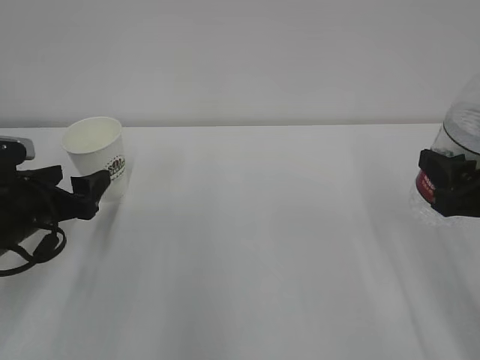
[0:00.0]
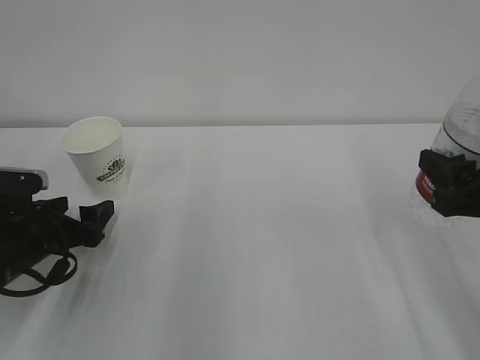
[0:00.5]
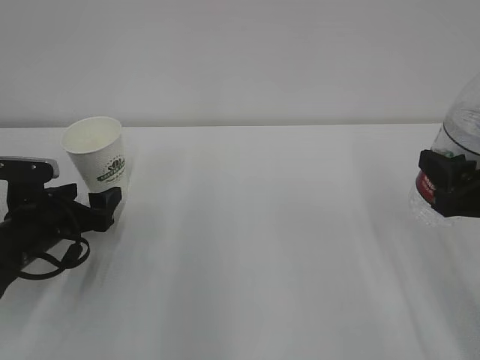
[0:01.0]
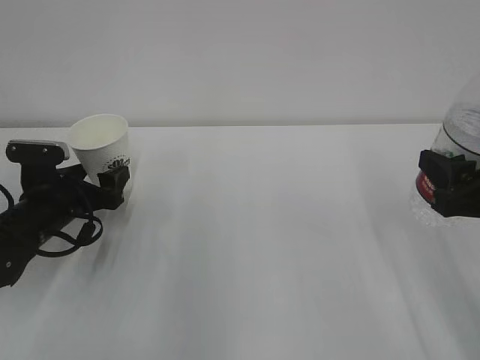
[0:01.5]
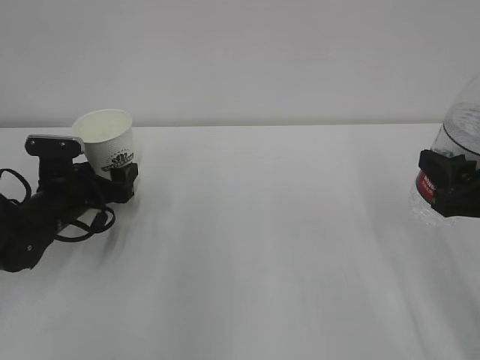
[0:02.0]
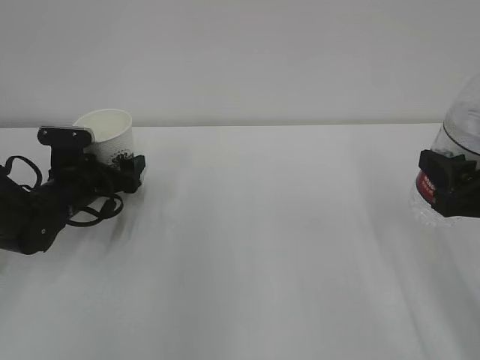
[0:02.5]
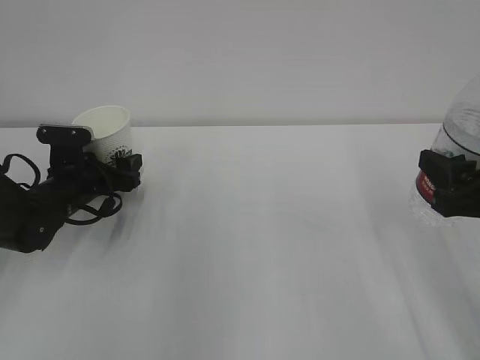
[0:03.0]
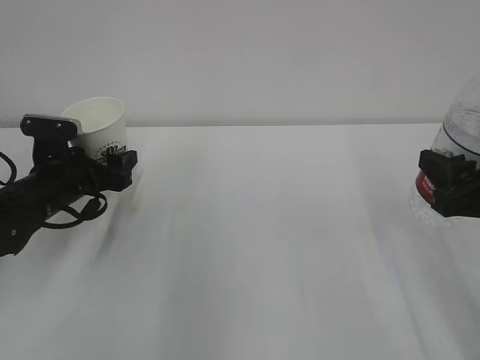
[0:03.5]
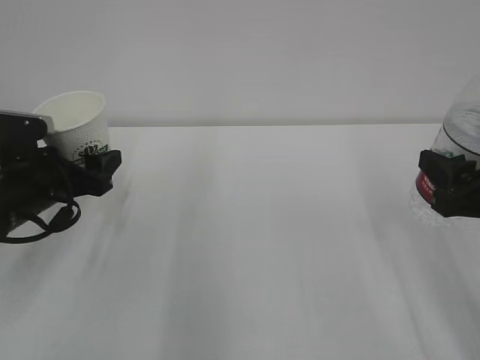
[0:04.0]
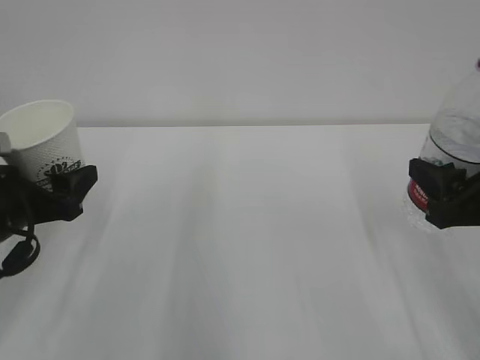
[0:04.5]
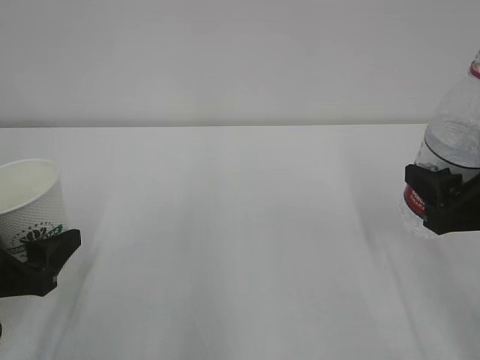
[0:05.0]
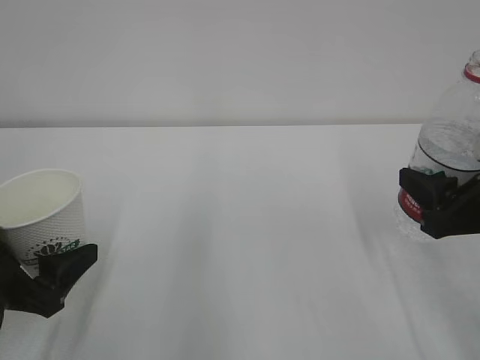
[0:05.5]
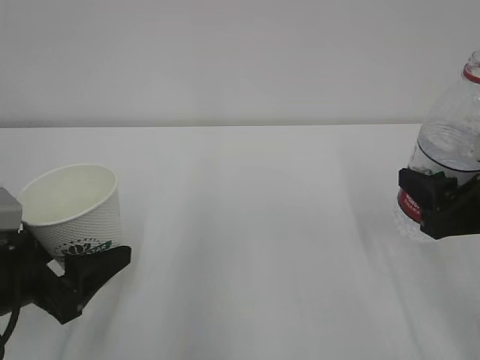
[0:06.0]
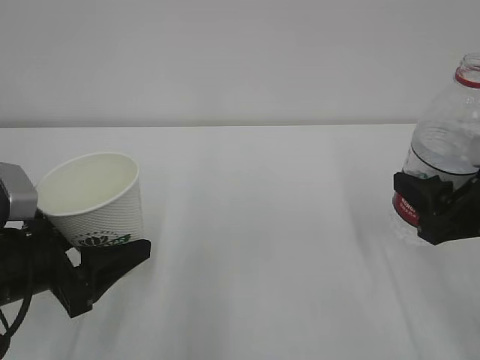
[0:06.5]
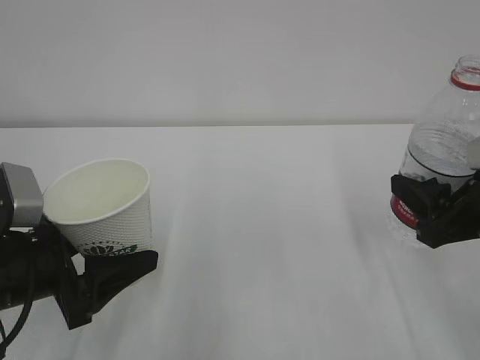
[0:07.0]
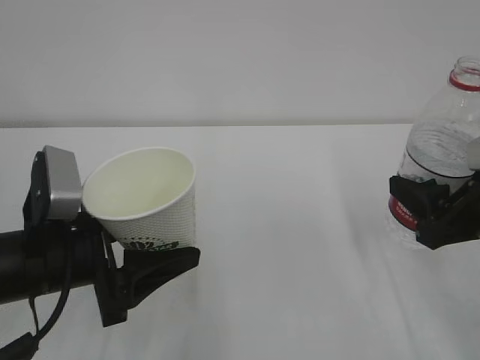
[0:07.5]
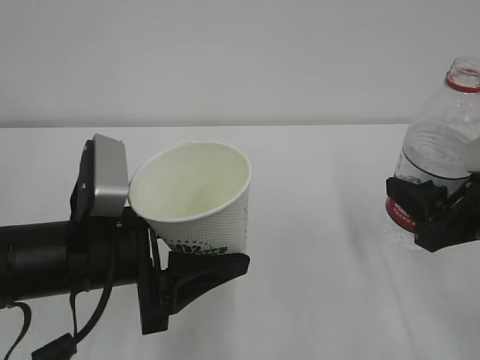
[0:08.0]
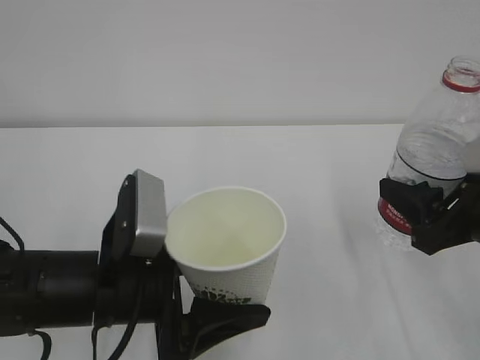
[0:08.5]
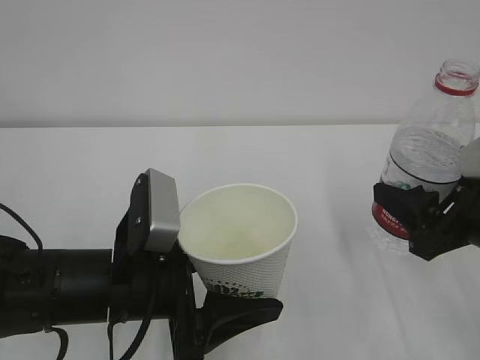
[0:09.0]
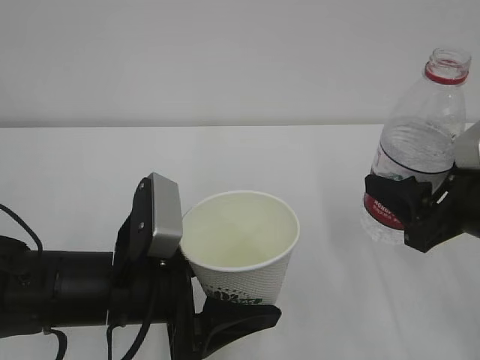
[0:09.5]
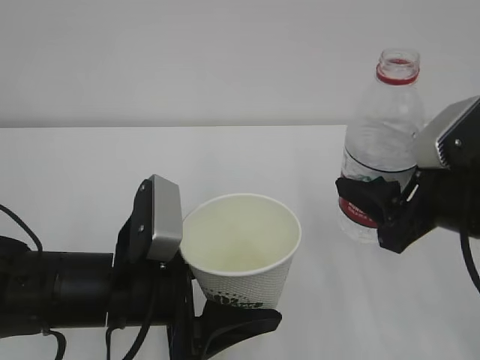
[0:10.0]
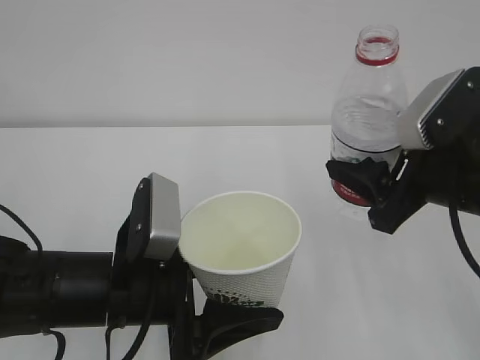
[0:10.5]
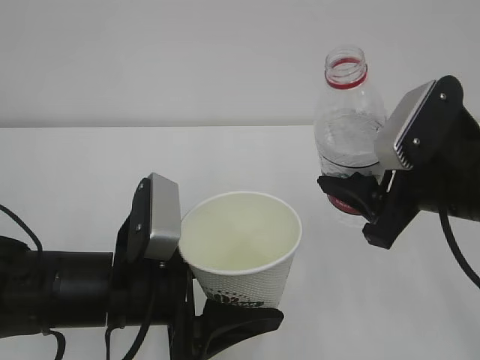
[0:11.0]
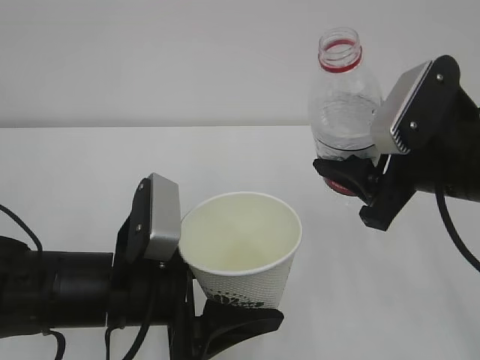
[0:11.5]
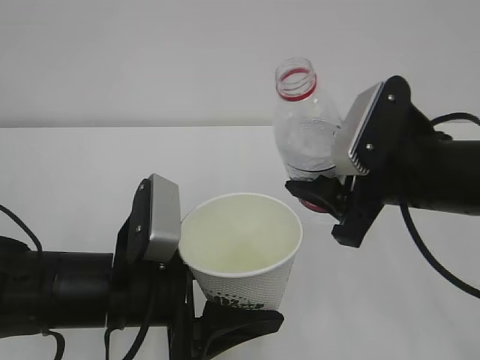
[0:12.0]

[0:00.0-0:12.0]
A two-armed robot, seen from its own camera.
0:00.0 to 0:02.0: The left gripper shifts some 10 cm forward and downward.
0:02.0 to 0:04.0: The left gripper travels upward by about 5 cm.
0:04.0 to 0:06.0: The left gripper is displaced backward by about 10 cm.
0:06.0 to 0:08.0: The left gripper moves to the right, approximately 10 cm.
0:10.0 to 0:12.0: The right gripper travels to the left by about 5 cm.

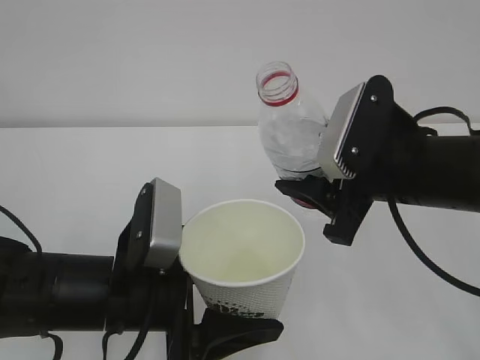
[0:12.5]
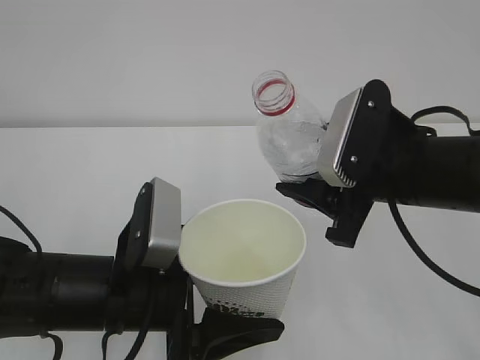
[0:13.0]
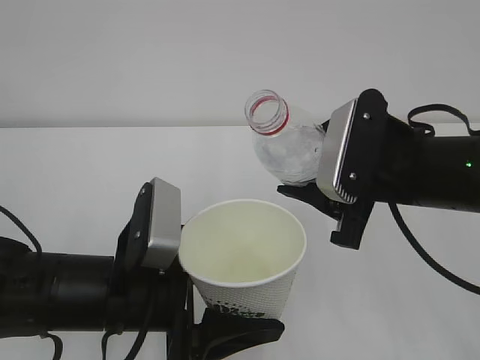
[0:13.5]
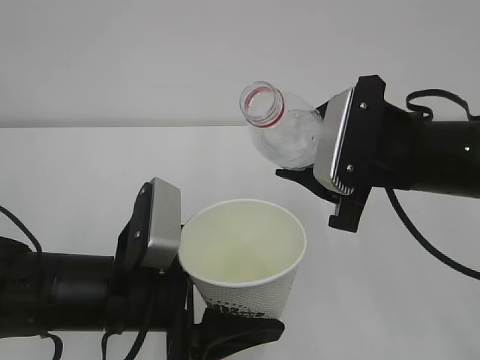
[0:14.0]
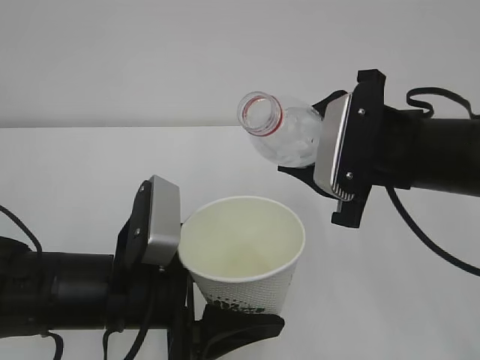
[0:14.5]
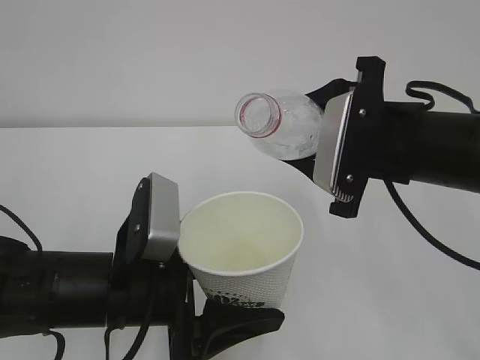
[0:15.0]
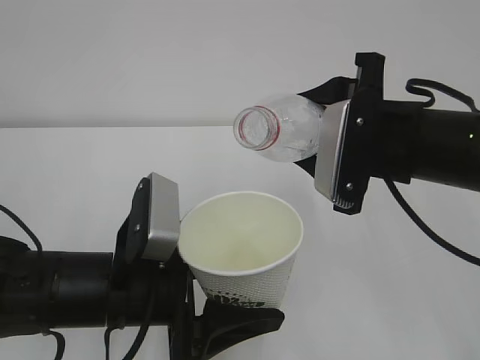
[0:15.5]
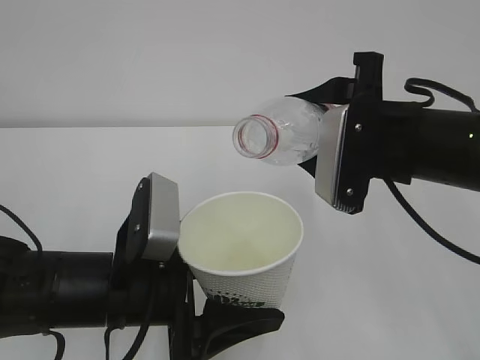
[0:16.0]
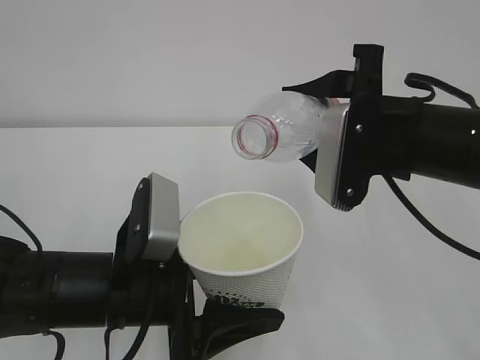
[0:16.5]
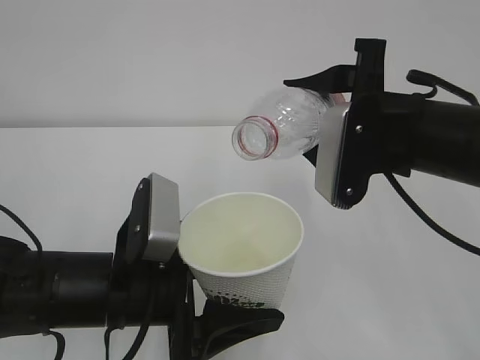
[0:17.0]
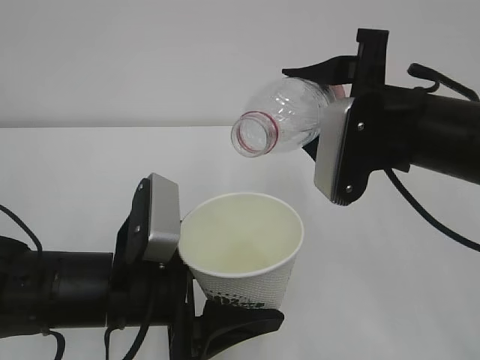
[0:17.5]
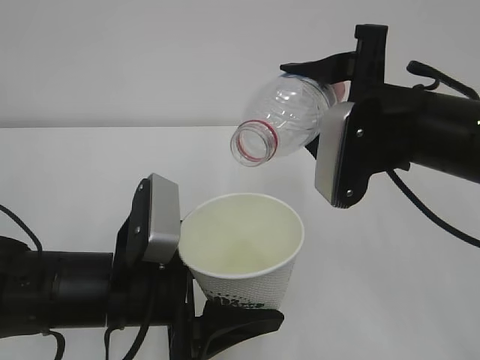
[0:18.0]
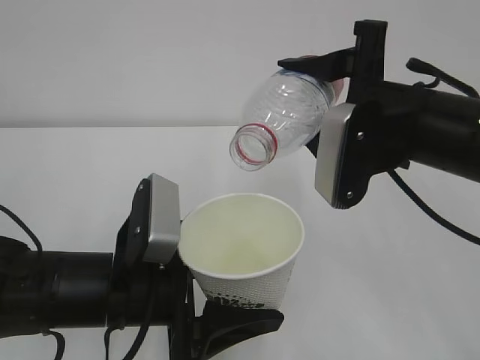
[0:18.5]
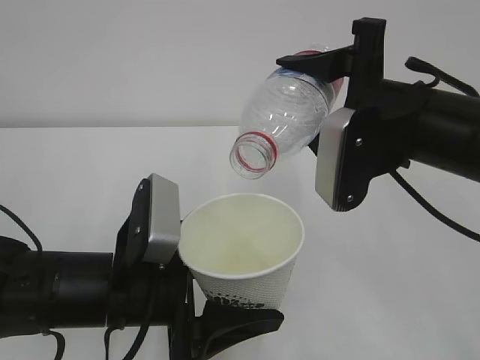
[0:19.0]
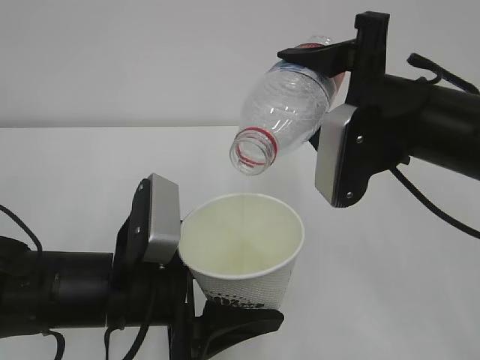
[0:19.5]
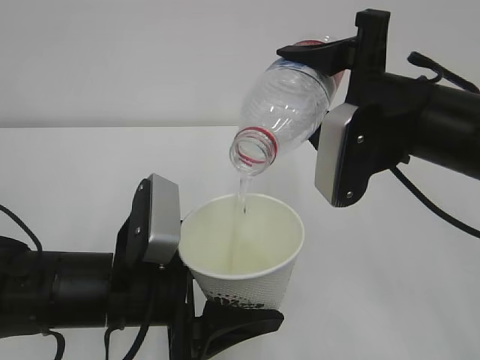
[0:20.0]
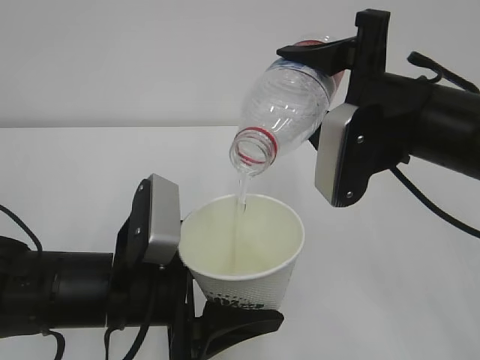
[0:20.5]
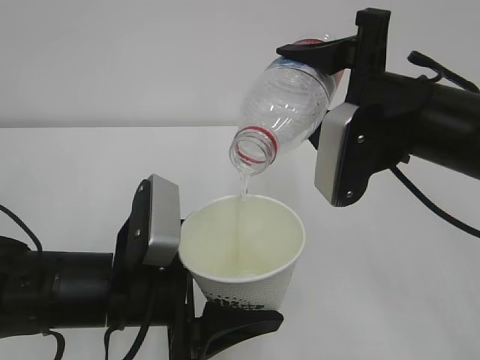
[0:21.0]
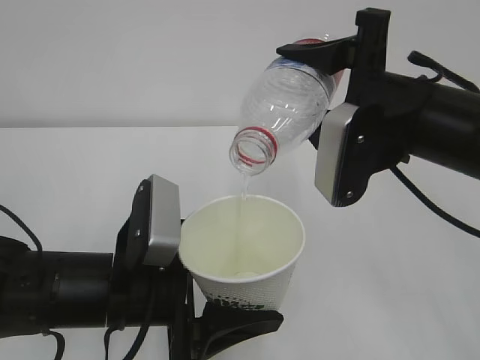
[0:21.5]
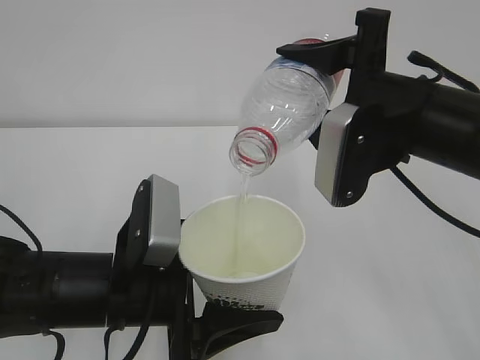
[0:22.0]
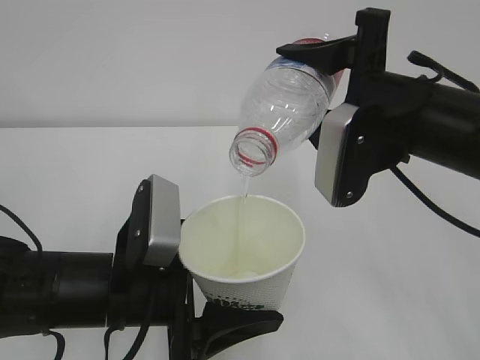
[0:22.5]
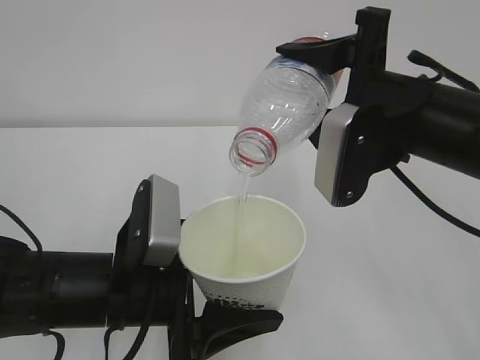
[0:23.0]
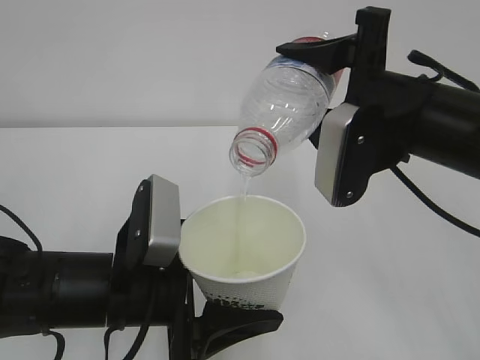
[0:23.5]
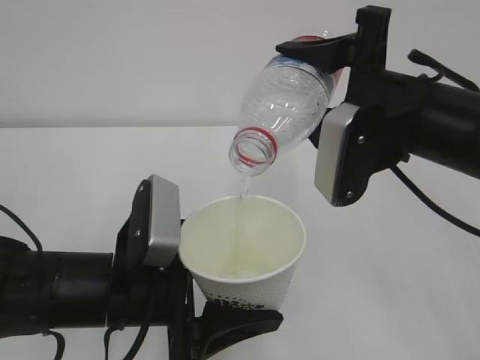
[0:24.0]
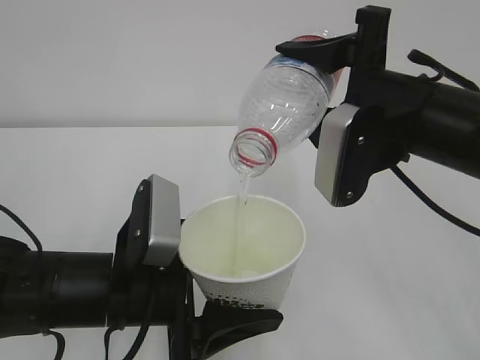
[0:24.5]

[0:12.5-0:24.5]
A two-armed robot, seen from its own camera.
0:14.5 to 0:16.5: The grippers move only a little.
0:16.5 to 0:20.5: There are only small adjustments of the grippers.
0:20.5 to 0:24.5: Both grippers stay about where they are.

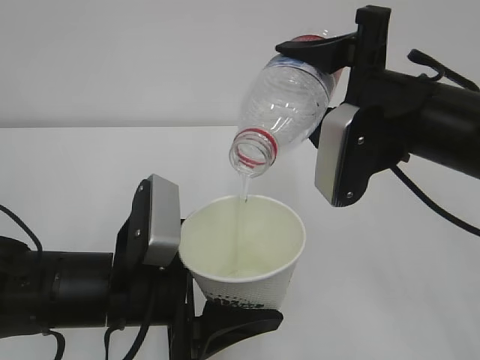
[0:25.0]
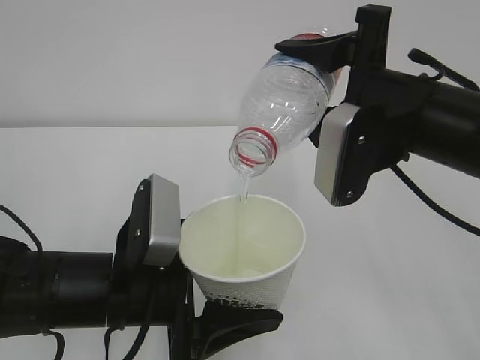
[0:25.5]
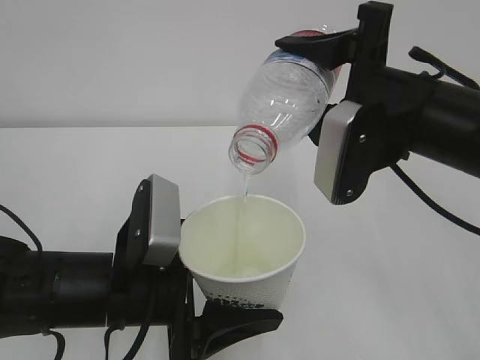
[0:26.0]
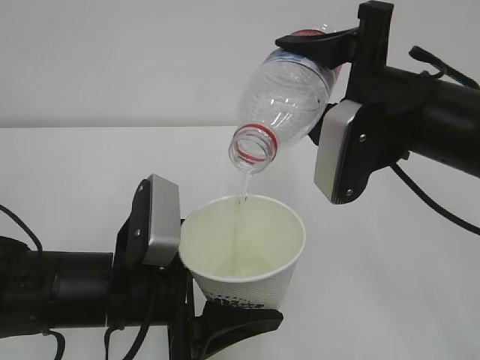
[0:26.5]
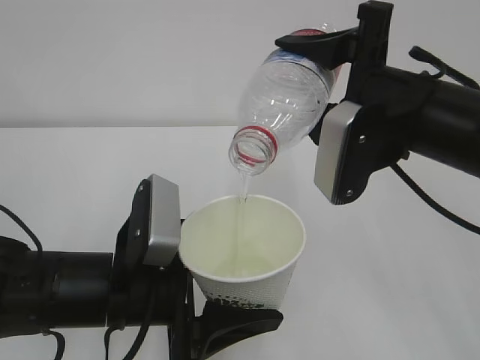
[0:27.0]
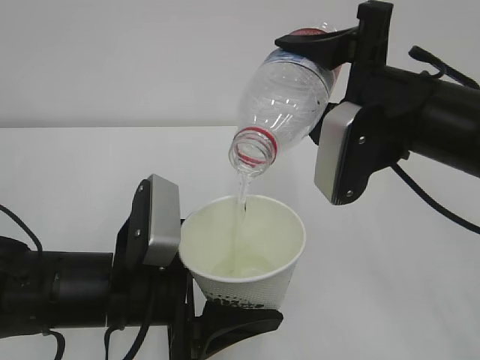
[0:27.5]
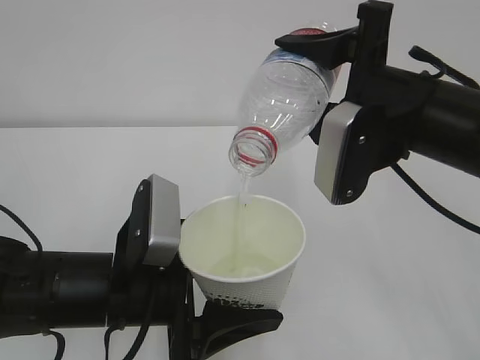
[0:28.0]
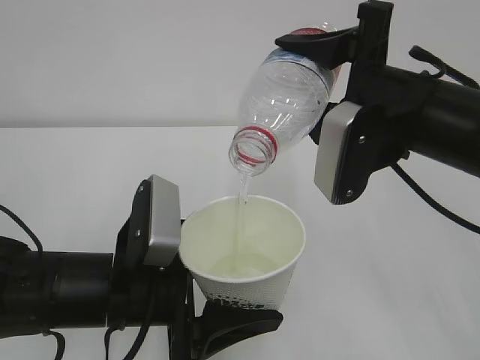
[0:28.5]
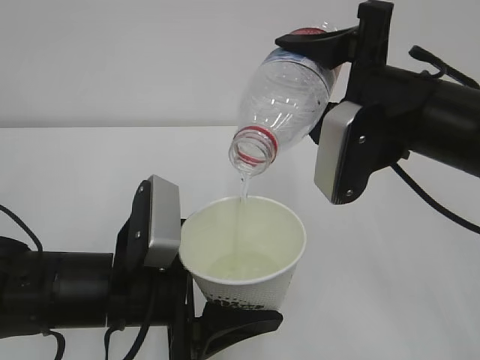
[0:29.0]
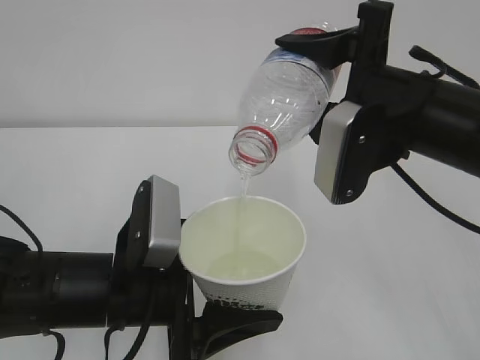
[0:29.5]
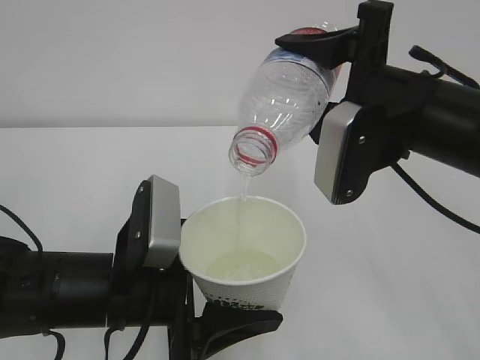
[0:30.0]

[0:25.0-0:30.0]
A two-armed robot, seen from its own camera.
0:25.0 to 0:30.0: Both grippers stay about where they are.
